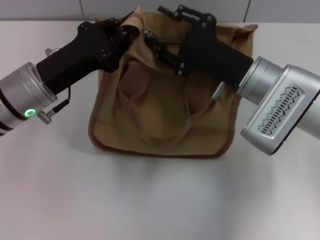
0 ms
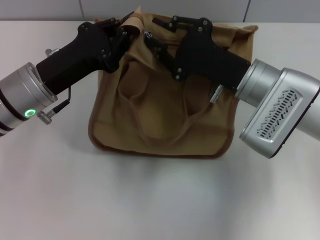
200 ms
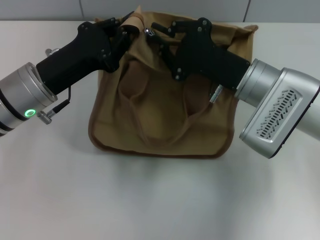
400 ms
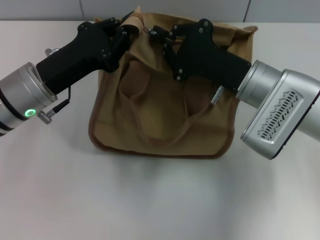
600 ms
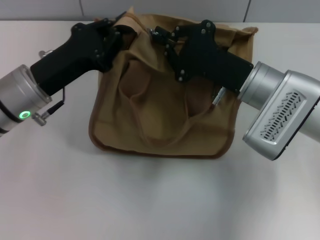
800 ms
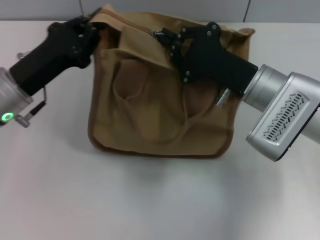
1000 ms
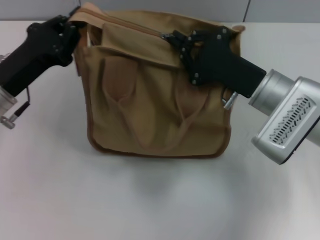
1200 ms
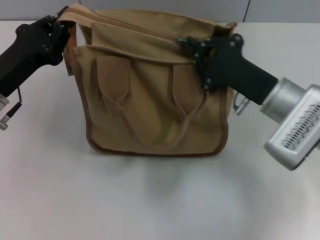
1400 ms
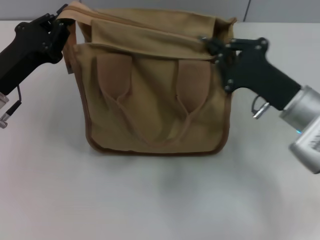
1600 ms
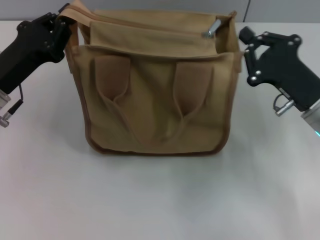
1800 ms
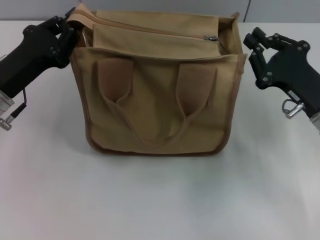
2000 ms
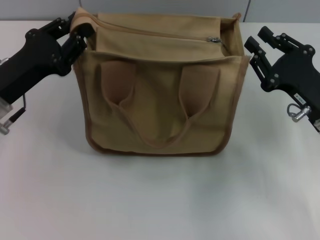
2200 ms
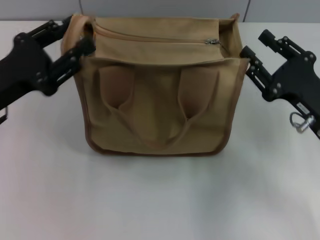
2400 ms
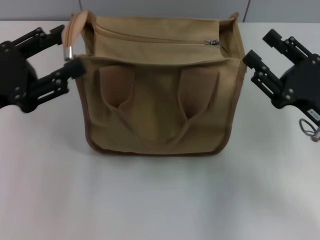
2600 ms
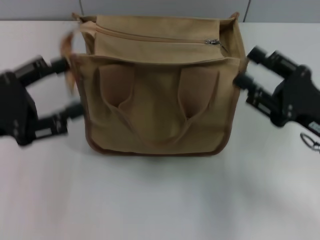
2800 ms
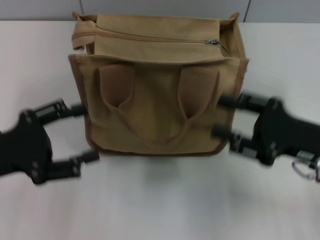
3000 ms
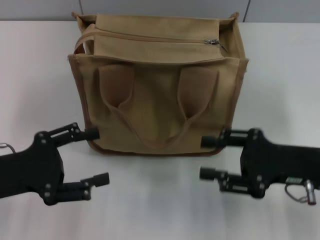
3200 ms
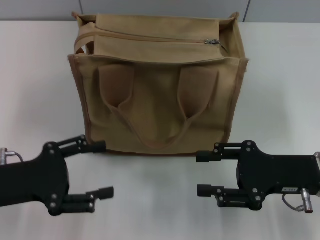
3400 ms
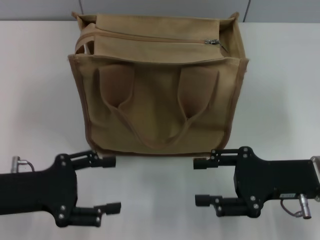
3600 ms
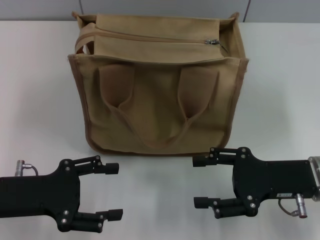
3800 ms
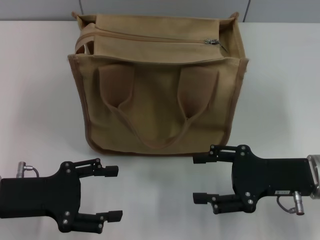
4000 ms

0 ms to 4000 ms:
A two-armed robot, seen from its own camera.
Step, 0 ms to 2000 ms: Pull up the zipper with your right hand.
Step, 2400 ms to 2600 ms: Grab the zipper with your left hand.
0 ms to 1400 ms: The left gripper is displaced to the left by some 5 cm; the right gripper changes place by some 5 cm, and closes.
1400 ms to 2600 ms: The left gripper moves approximately 5 cm, and opens its fingers. The right gripper goes roughly 10 cm to the right and backward, and opens up.
2600 ms to 4000 ms: The left gripper is displaced downward by approximately 5 cm, and opens.
